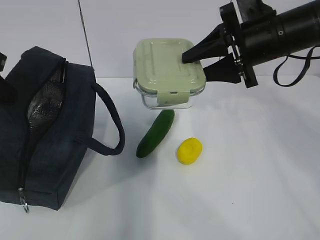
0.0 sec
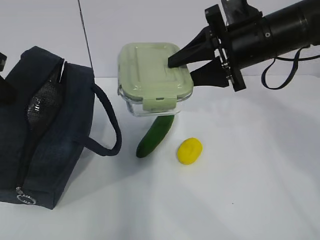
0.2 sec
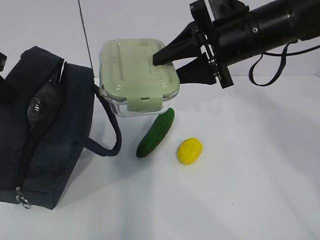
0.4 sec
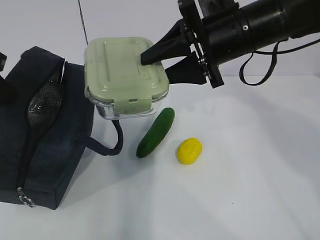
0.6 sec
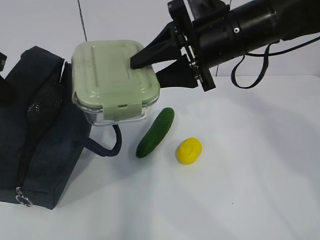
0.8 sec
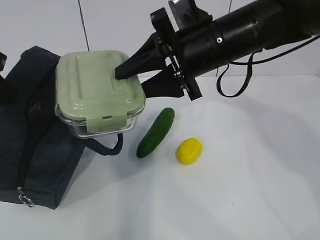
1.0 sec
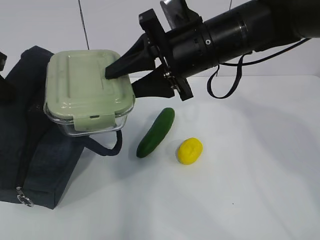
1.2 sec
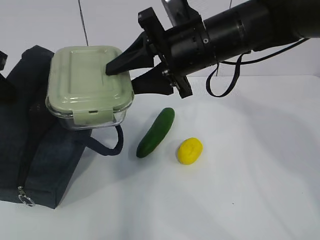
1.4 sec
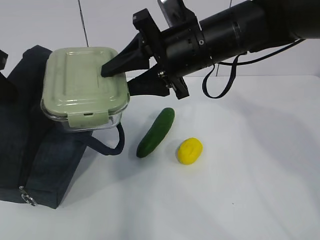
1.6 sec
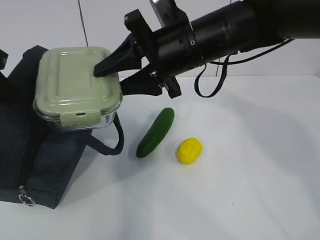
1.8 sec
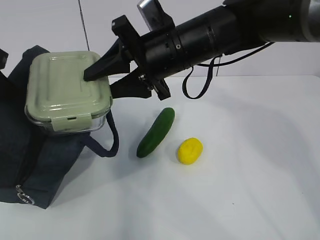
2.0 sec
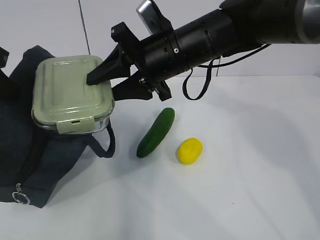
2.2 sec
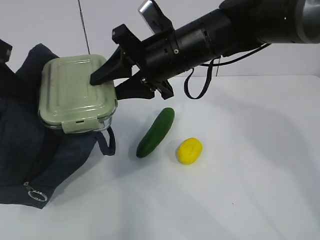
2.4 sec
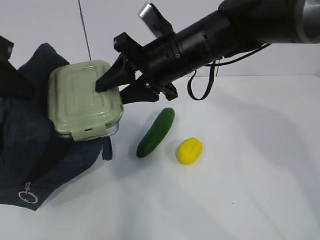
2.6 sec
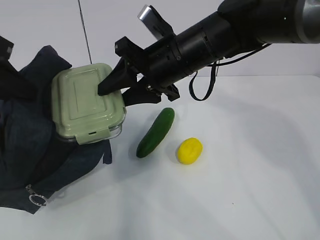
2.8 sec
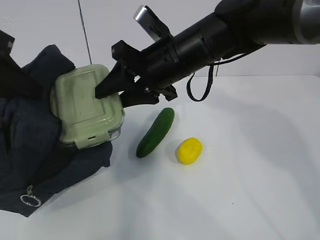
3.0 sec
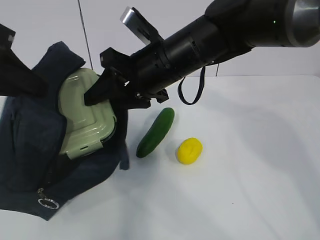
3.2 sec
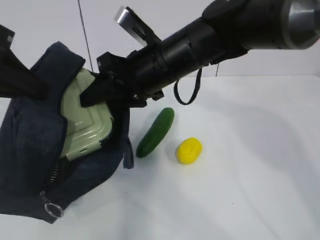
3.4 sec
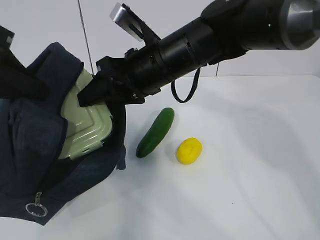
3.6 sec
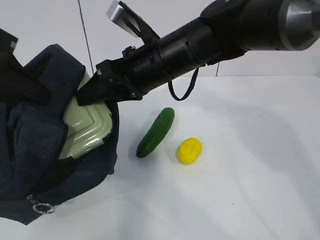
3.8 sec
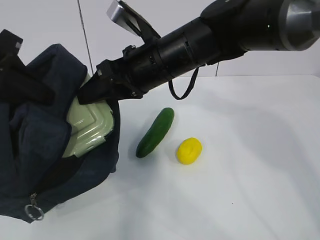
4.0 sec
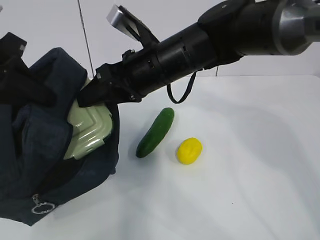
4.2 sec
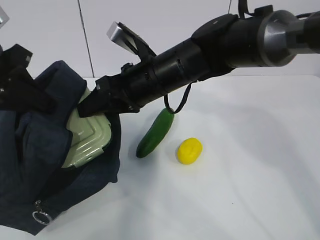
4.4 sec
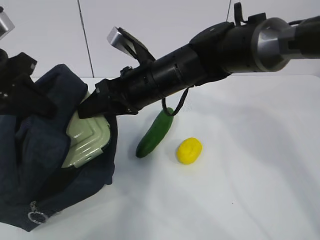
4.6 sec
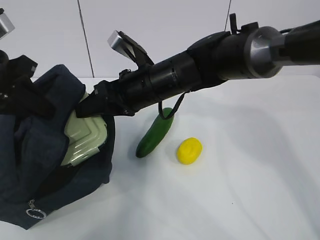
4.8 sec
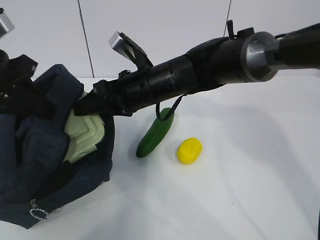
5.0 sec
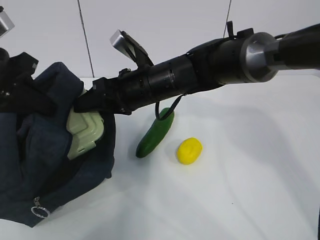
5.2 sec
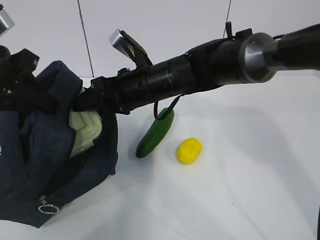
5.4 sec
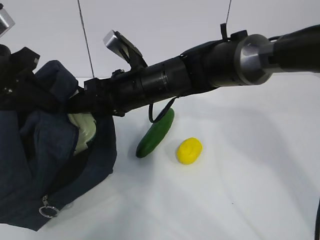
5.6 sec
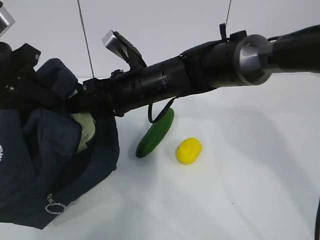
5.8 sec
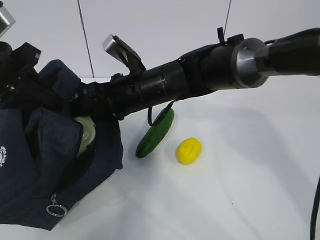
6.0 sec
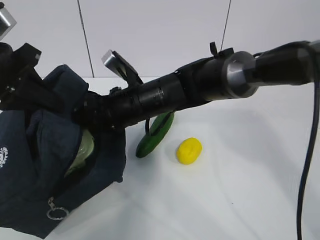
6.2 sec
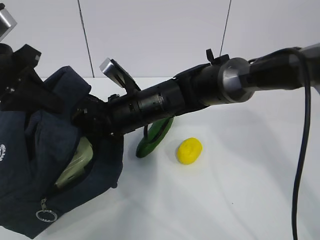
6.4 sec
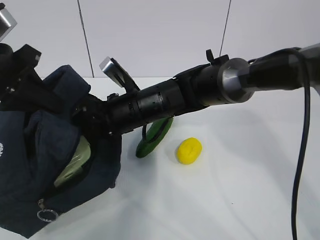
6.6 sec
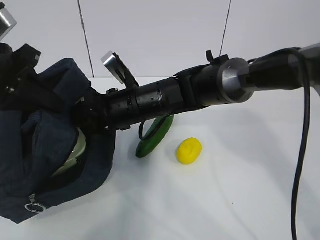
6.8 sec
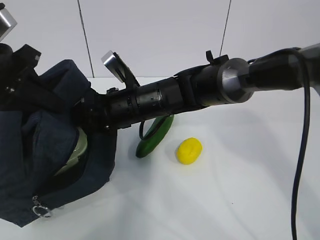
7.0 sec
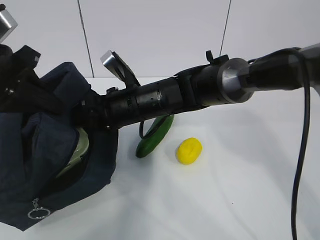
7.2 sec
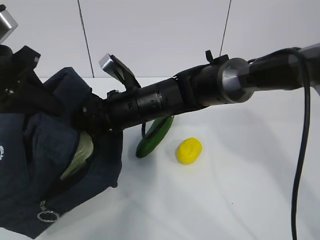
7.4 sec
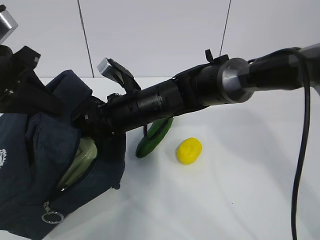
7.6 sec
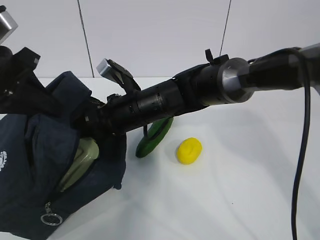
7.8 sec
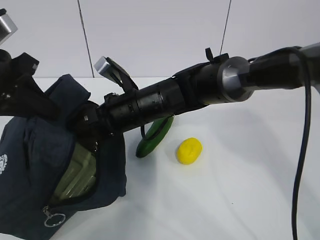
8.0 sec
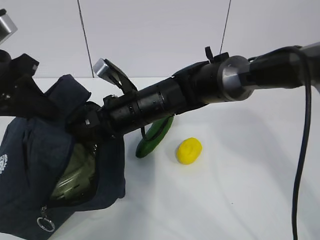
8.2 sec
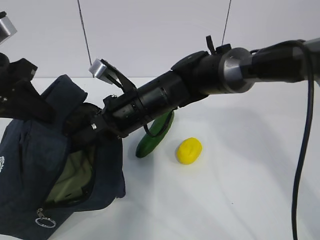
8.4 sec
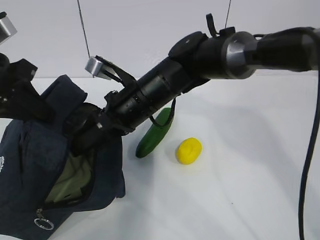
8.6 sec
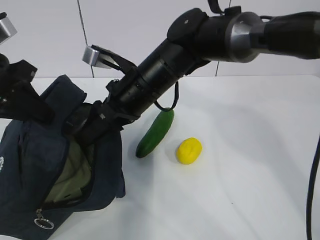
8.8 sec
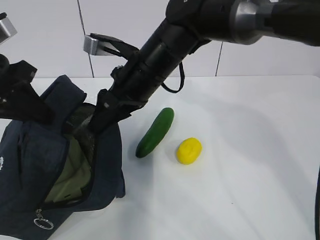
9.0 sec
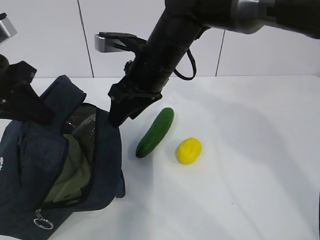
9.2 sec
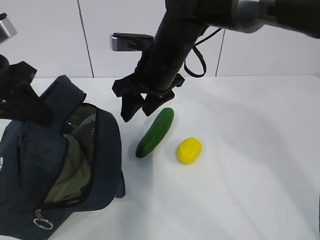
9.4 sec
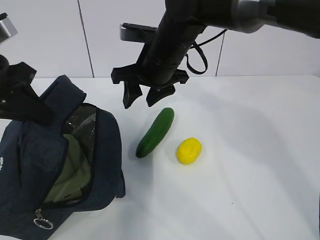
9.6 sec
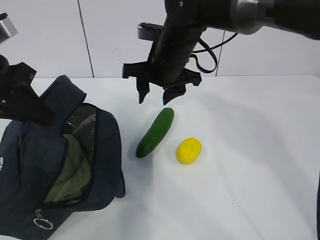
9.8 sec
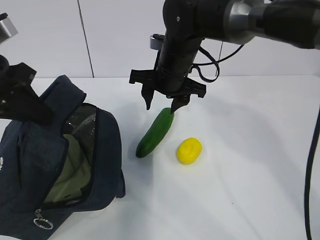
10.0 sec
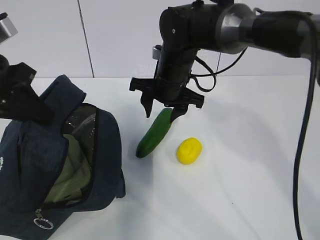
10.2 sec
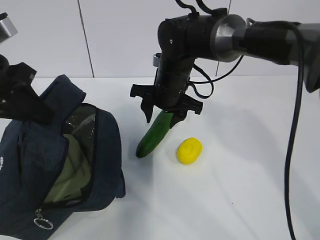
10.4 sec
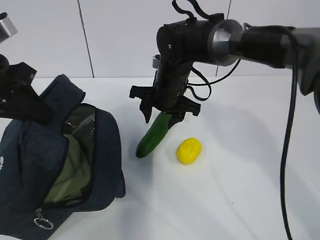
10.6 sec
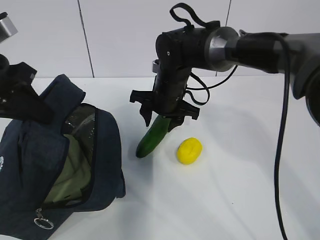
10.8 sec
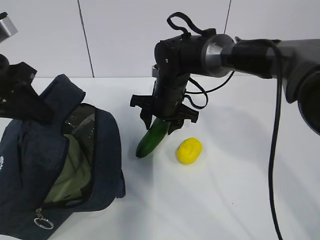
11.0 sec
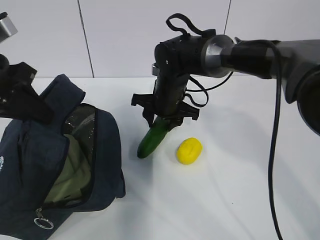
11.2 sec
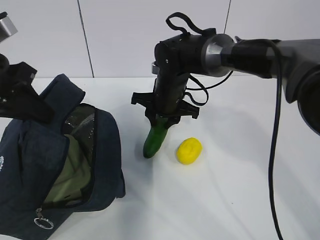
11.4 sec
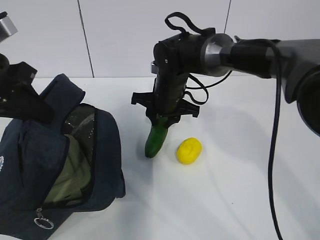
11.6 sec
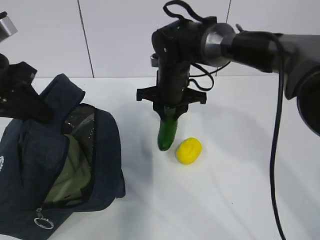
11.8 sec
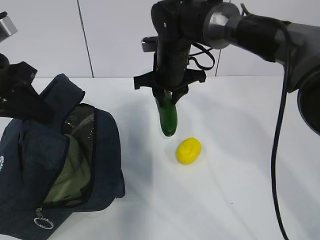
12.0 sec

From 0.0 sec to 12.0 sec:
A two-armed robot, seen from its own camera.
Step, from 0.0 sec to 2.8 sec: Place it into the bag with your right hand.
Step, from 3.0 sec to 5.4 sec: Grab the cucumber with your right hand.
Step, from 5.8 sec to 8.6 sec: Place it into the bag with your right hand.
Step, from 8.8 sec to 11.8 sec: Grab the lemon with your right hand.
From 0.0 sec to 1.6 sec: The right gripper shifts approximately 10 cm to the left.
From 1.6 sec to 3.0 sec: The grippers make only small movements.
From 4.4 sec to 6.0 sec: The grippers move only a little.
From 7.6 sec to 9.0 sec: The right gripper shifts about 10 cm upward.
From 9.0 sec to 10.4 sec: The right gripper is displaced downward and forward by some 10 cm.

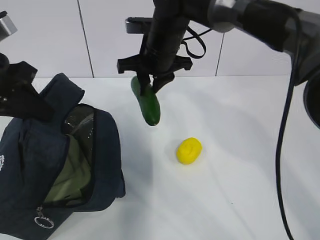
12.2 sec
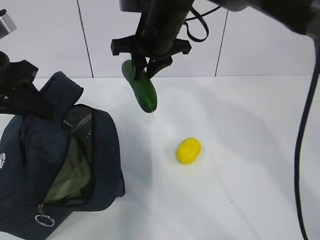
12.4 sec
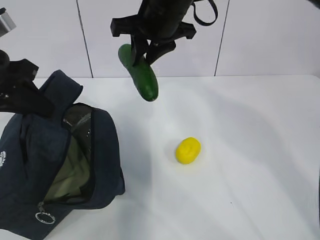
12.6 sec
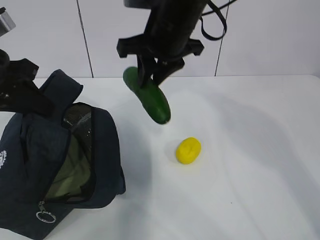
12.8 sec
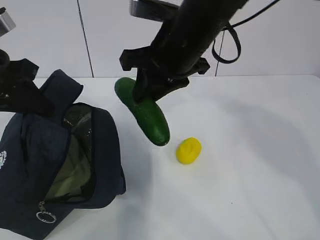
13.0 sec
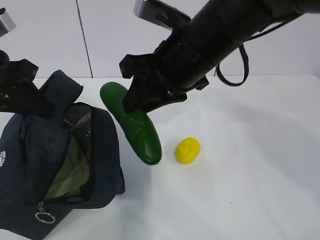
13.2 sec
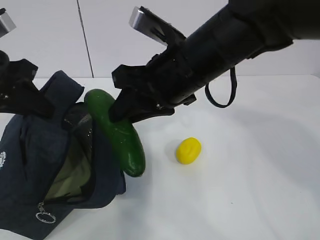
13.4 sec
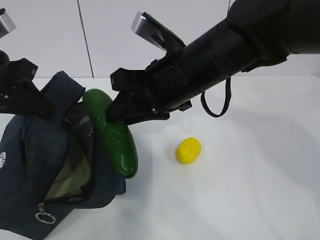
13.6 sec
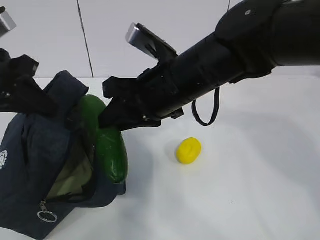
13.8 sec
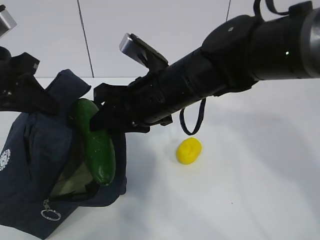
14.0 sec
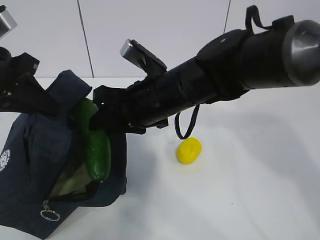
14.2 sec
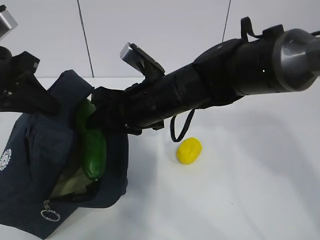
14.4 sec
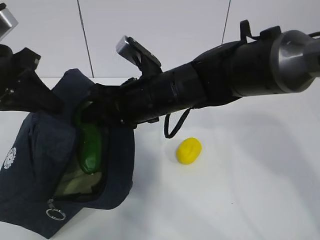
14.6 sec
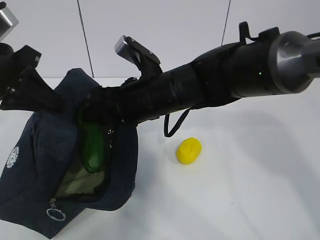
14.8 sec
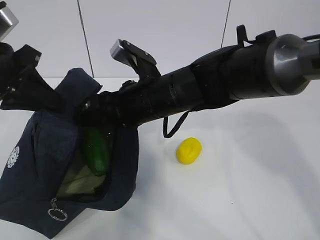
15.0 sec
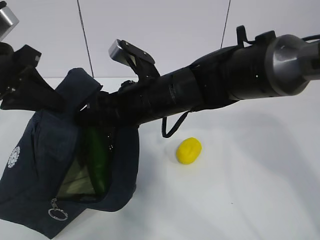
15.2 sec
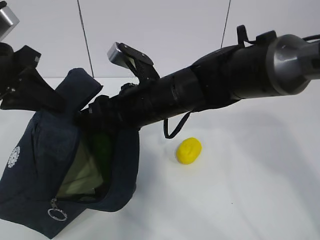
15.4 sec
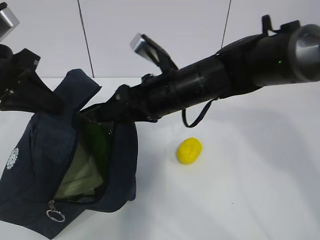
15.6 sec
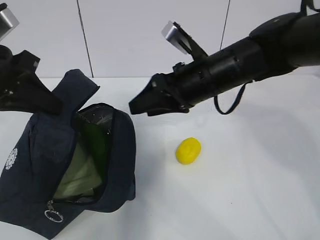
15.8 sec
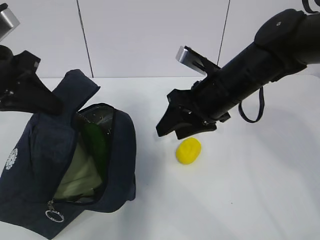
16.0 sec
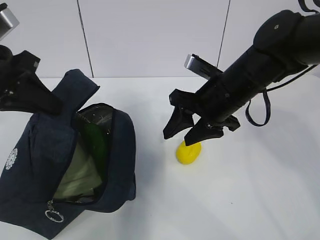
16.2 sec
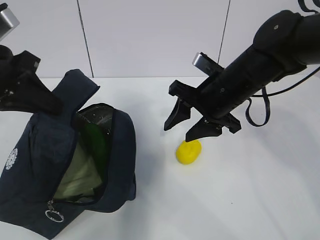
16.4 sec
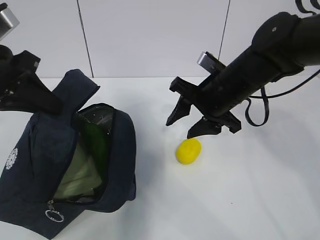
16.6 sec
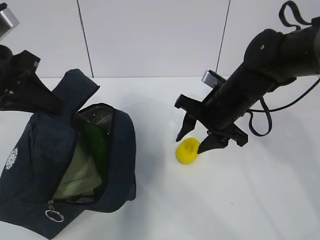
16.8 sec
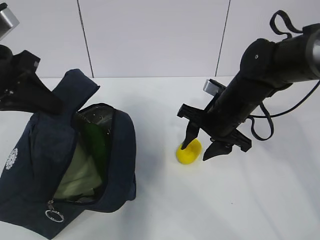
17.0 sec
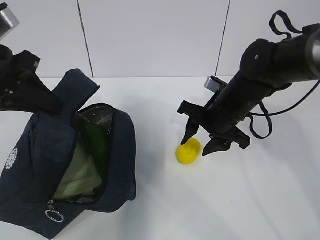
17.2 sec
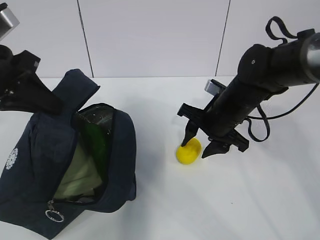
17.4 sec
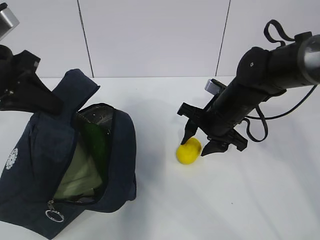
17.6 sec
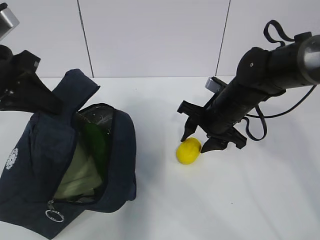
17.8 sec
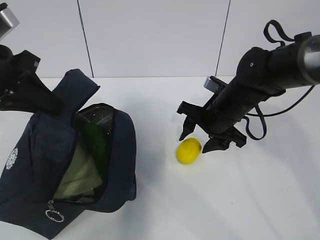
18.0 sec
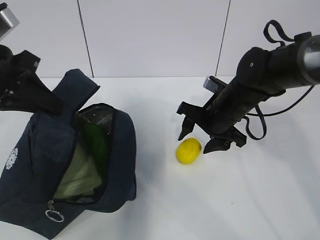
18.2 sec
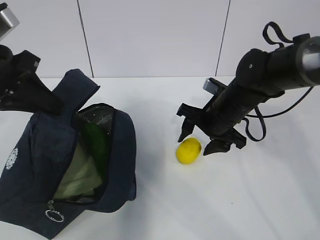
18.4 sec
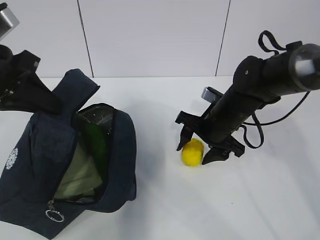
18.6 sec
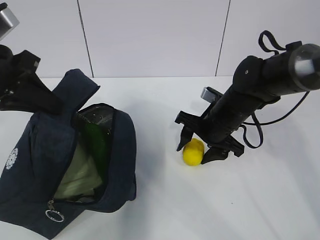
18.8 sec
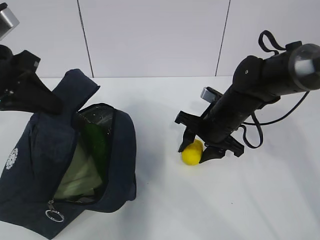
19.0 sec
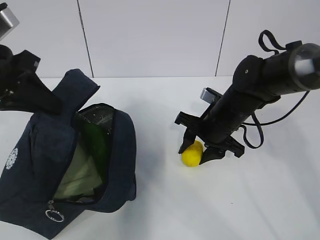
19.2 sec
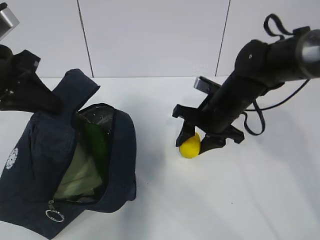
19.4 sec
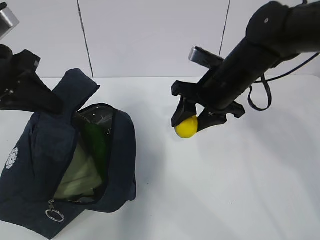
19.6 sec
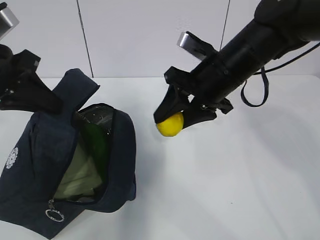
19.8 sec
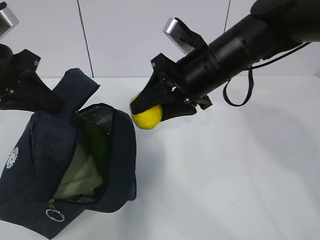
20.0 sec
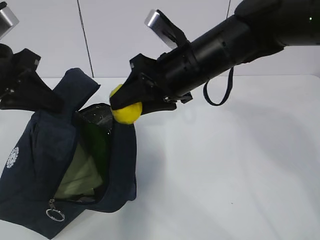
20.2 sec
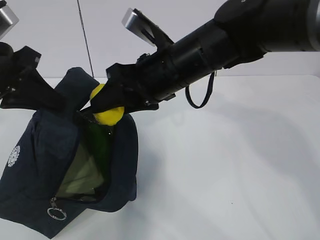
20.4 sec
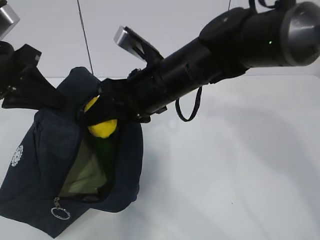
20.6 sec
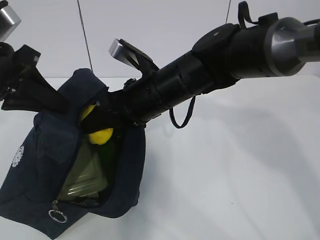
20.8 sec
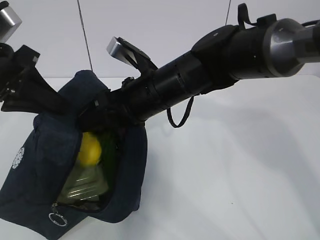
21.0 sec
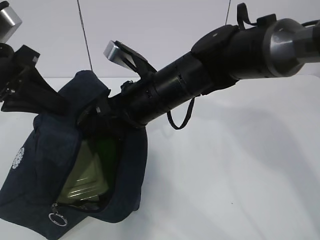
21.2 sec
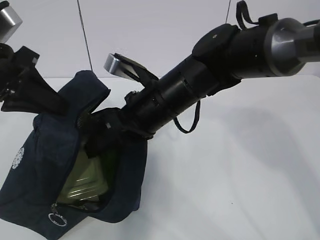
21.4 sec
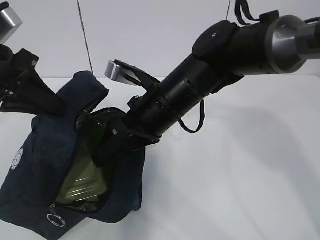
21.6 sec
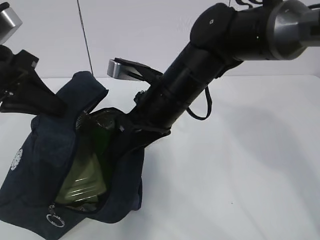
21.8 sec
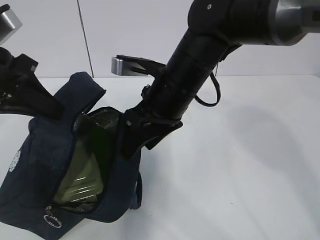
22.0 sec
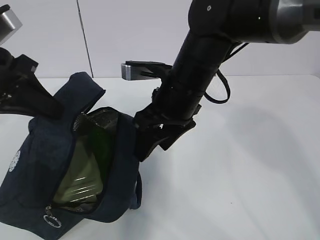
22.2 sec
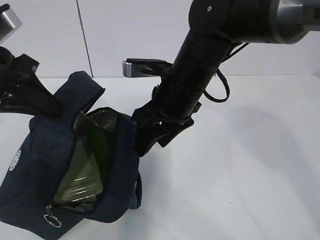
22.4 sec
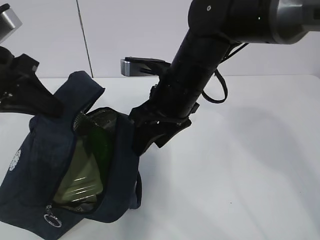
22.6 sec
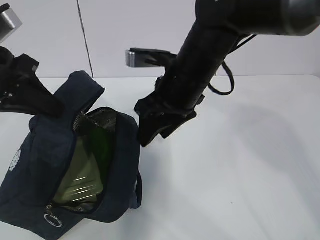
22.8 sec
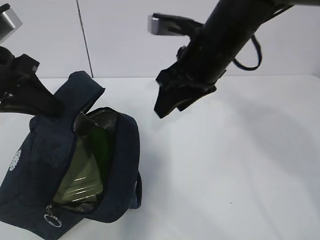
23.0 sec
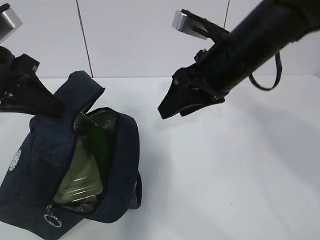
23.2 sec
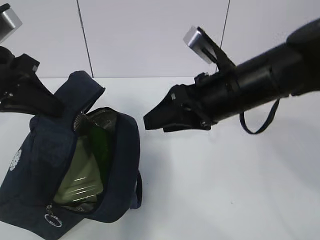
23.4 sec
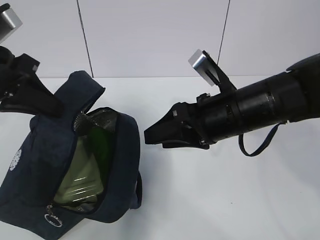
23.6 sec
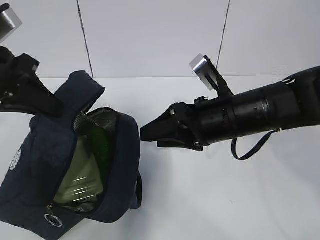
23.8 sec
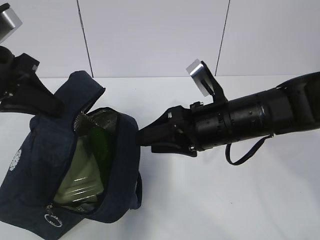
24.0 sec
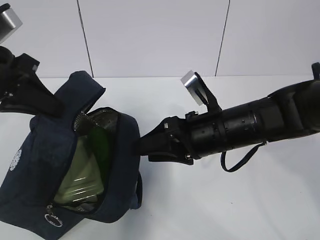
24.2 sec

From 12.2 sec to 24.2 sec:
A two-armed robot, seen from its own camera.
Step, from 13.8 sec to 17.6 sec: Grab the lunch bag with your right hand.
Step, from 17.8 sec to 21.2 sec: Move the lunch bag to the right.
From 12.2 sec to 13.8 sec: The right gripper goes about 15 cm backward.
From 13.8 sec to 15.2 sec: The right gripper ends up some 5 cm from where it was.
From 15.2 sec to 16.6 sec: The right gripper goes about 10 cm to the right.
From 16.6 sec to 18.2 sec: The right gripper heads downward, covering approximately 5 cm.
From 18.2 sec to 19.8 sec: The right gripper is displaced upward by approximately 10 cm.
From 19.8 sec to 21.2 sec: The right gripper travels to the left by approximately 10 cm.
From 22.6 sec to 24.2 sec: The right gripper is displaced downward and to the right by approximately 10 cm.
